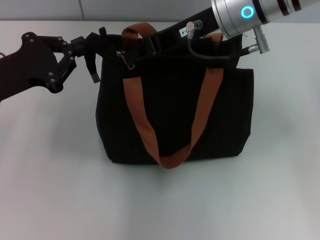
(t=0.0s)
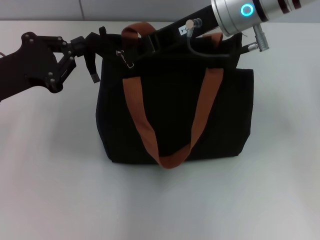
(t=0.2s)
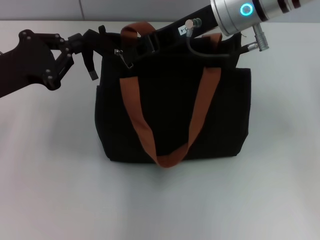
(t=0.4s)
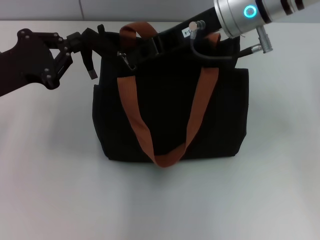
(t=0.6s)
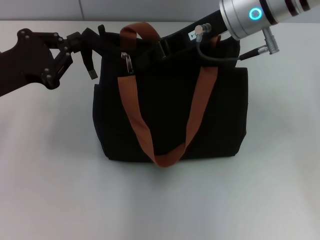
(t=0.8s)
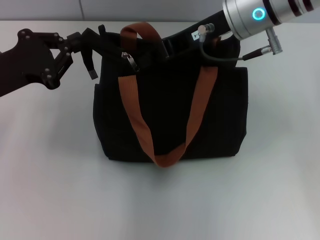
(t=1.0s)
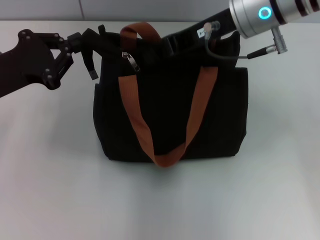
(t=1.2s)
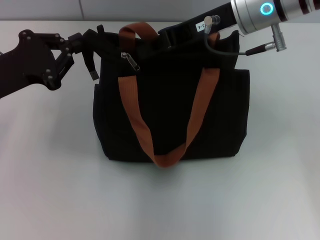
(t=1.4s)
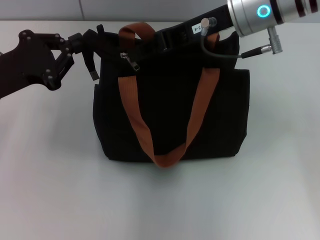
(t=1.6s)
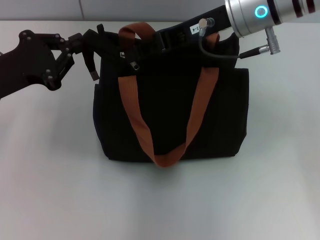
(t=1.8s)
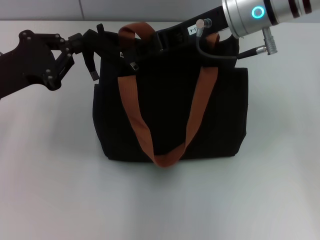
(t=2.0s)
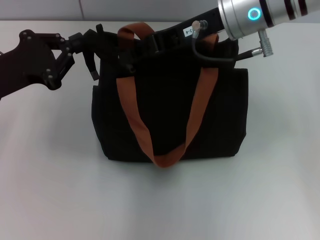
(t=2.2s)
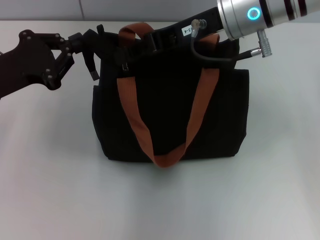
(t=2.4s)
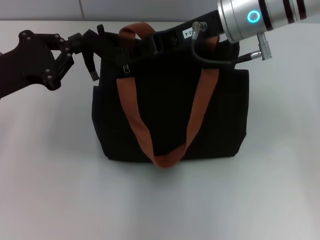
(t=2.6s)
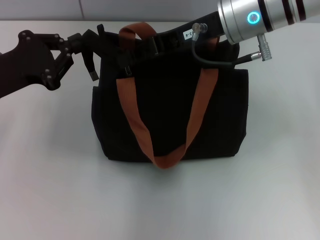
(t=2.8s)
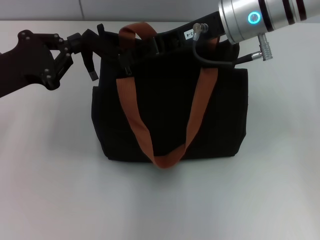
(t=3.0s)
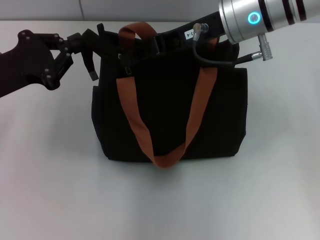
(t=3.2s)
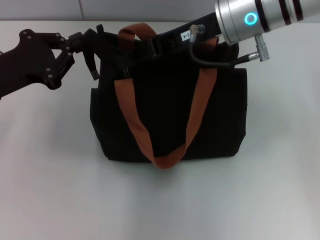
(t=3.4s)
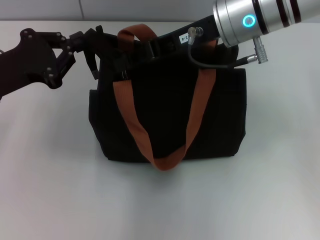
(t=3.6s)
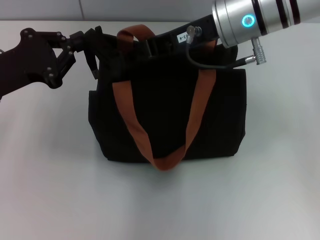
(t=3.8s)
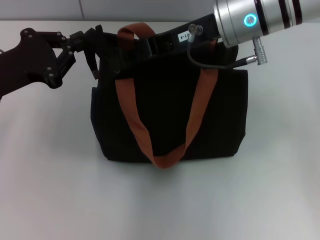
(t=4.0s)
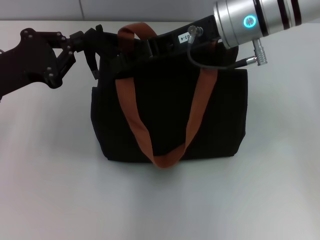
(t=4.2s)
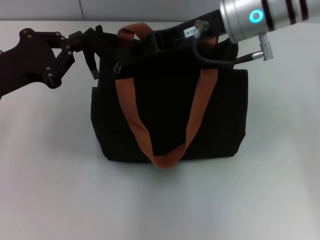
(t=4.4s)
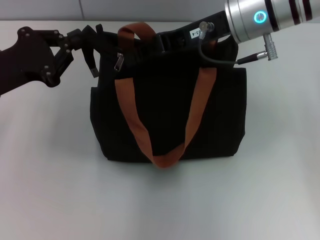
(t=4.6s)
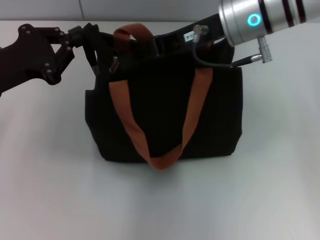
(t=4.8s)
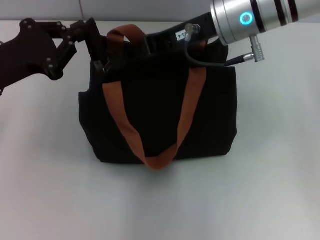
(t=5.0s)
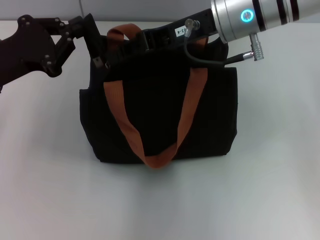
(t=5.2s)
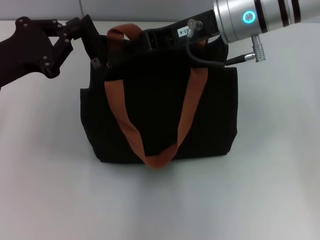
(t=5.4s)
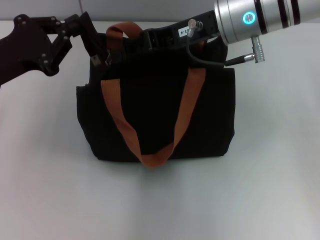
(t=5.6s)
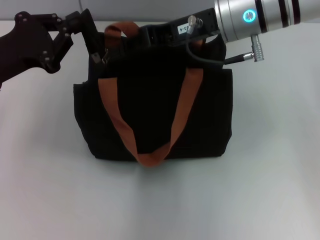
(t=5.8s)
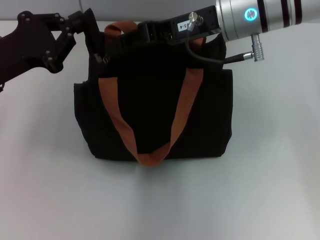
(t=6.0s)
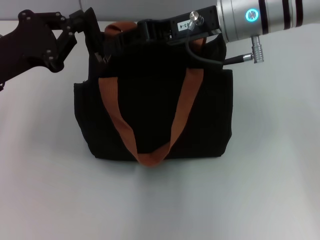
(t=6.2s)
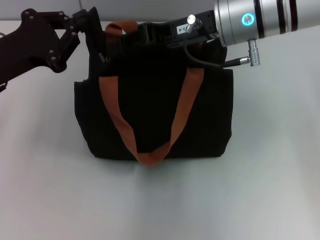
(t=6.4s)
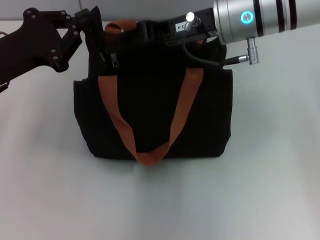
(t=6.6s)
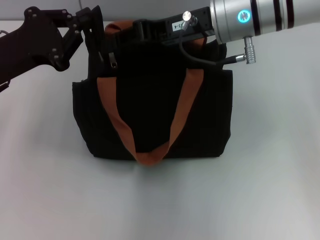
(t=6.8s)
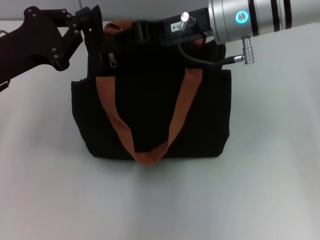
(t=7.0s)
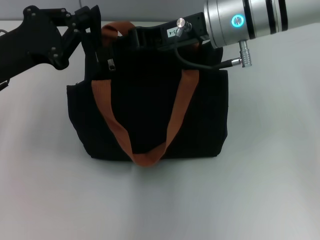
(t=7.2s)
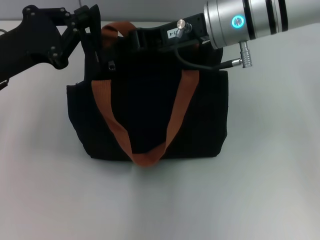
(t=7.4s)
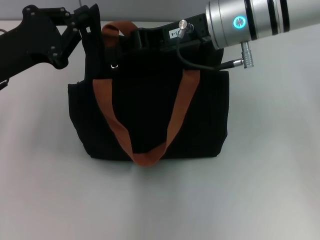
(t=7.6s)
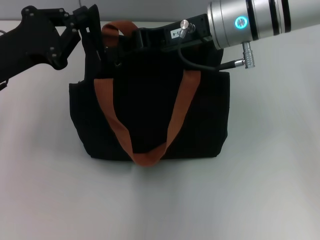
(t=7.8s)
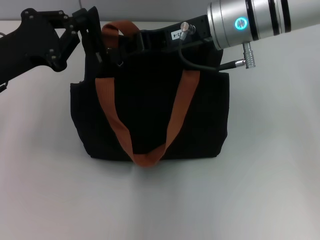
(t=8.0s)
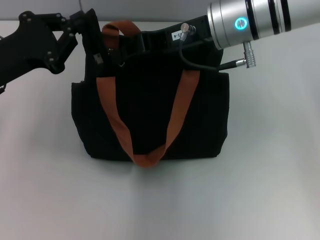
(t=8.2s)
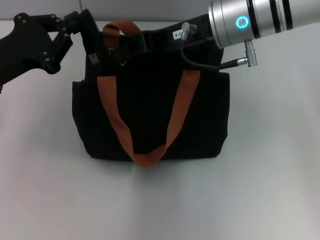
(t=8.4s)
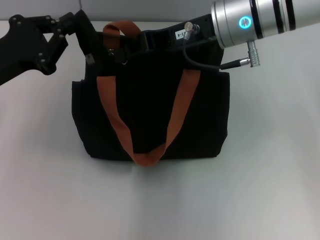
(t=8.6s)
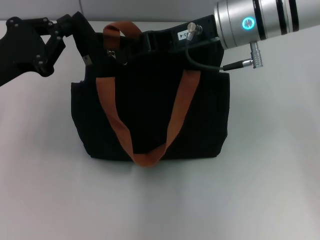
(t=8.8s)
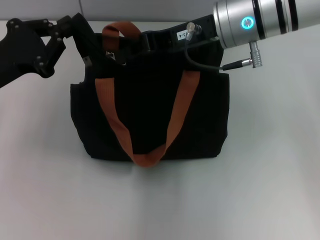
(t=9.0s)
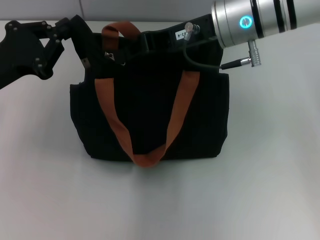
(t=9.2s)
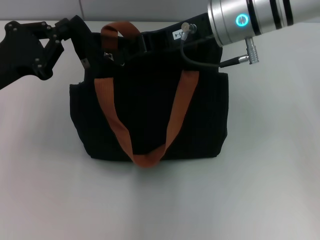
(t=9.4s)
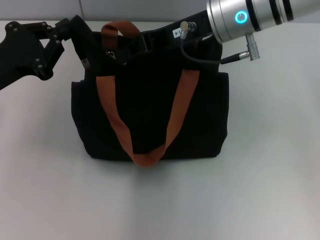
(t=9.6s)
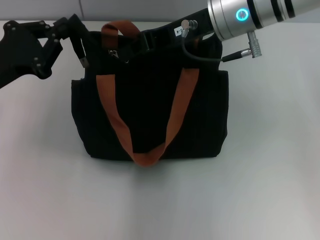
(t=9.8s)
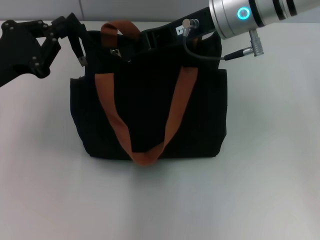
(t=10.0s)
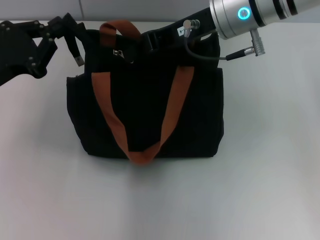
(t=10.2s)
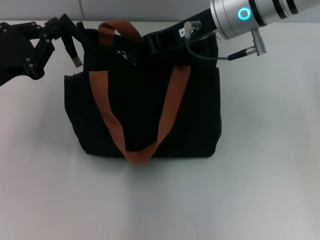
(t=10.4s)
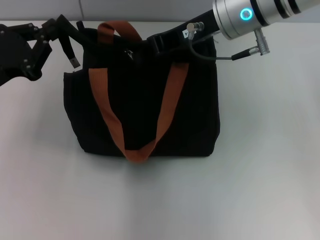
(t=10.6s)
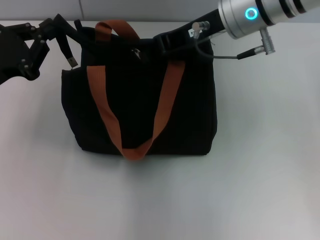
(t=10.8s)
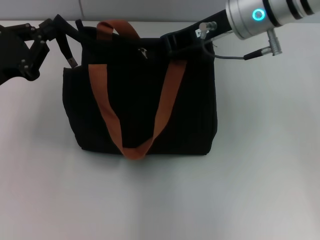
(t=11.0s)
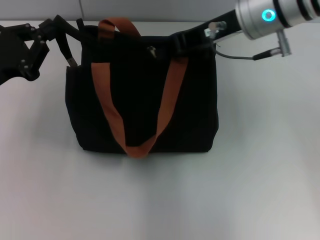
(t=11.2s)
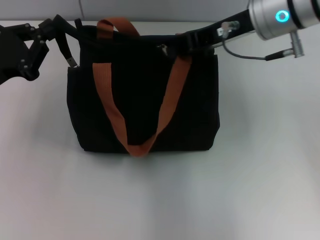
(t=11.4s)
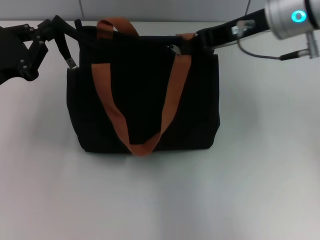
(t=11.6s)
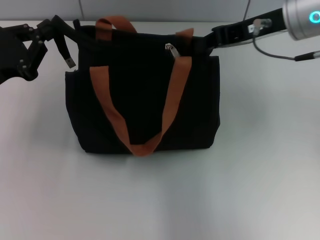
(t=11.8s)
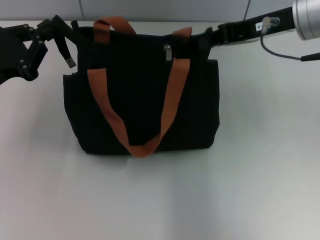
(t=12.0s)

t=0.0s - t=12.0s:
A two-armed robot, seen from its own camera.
Step, t=0.0s - t=12.0s: Pull up the zipper with your right hand.
t=0.0s - t=1.6s: The grippers stay close to where they were, moving slightly.
t=1.6s - t=3.0s: Both grippers stay about where they are.
t=3.0s - t=4.4s: The two grippers keep their place.
t=6.0s - t=10.4s: The grippers stay close to where they were, moving slightly.
t=10.4s - t=12.0s: The right gripper goes approximately 10 cm to the right.

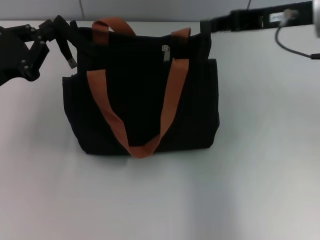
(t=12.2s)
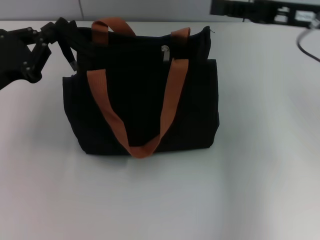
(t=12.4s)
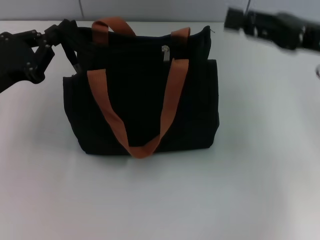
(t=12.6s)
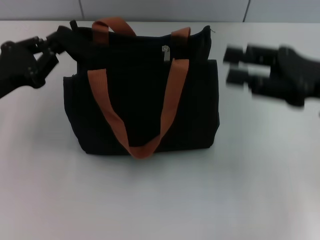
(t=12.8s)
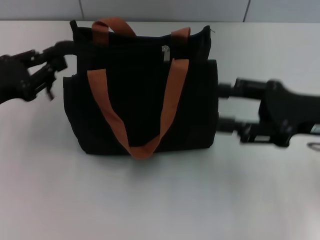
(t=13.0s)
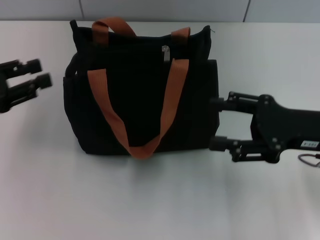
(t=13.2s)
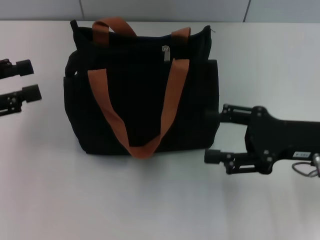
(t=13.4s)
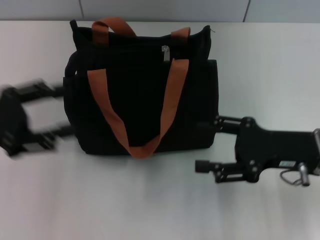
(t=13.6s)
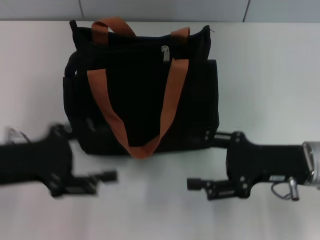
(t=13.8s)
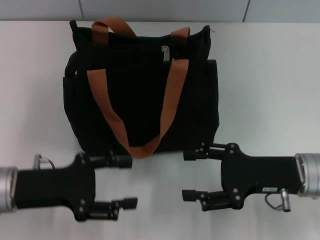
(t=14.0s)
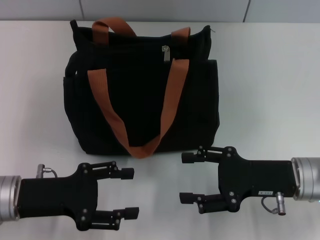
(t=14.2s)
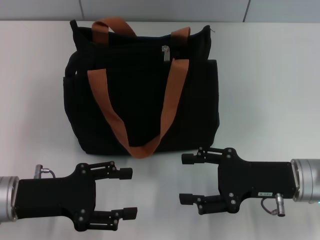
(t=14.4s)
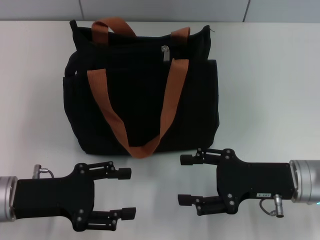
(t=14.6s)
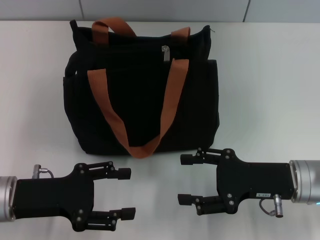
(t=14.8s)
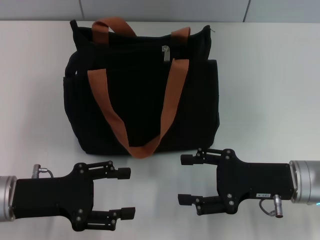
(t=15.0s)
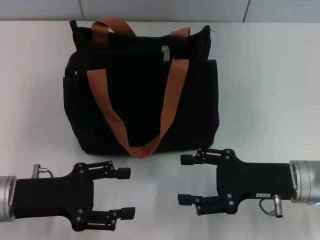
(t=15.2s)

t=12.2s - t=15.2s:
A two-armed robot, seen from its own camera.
Step, t=12.2s - t=13.0s: Grab the zipper with your left hand.
t=12.2s - t=13.8s: The right gripper heads downward and backward, covering about 20 cm, and opens. Meanwhile the left gripper moves backward, approximately 5 cm, travels to the left and back again, approximately 5 cm each way, and opens its fingers.
t=13.8s - t=15.2s: The left gripper shifts by about 5 cm.
